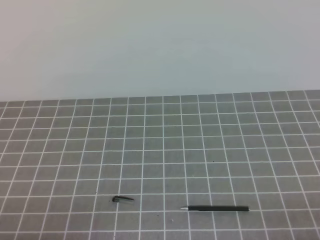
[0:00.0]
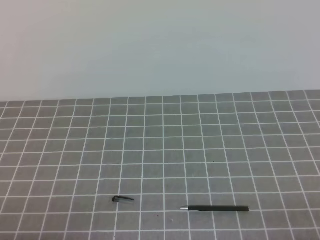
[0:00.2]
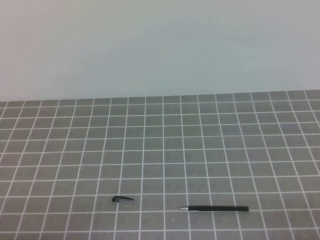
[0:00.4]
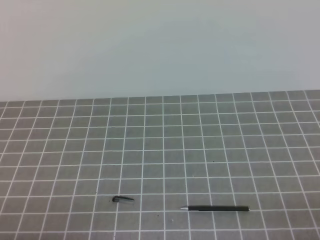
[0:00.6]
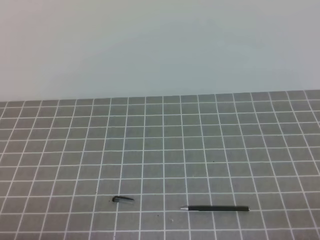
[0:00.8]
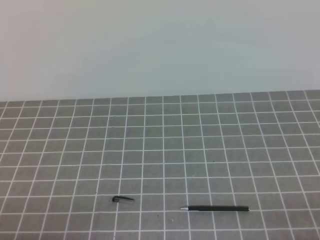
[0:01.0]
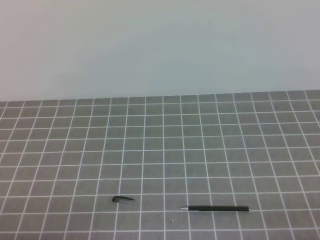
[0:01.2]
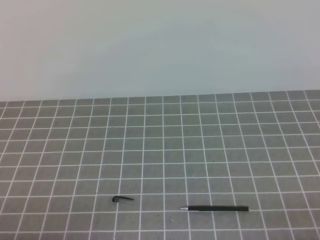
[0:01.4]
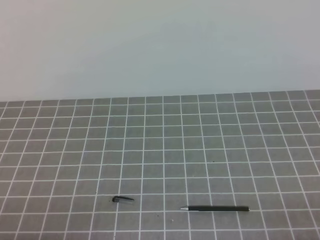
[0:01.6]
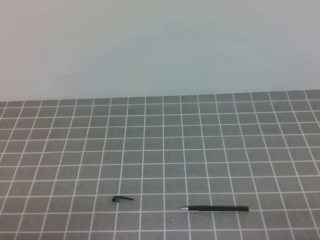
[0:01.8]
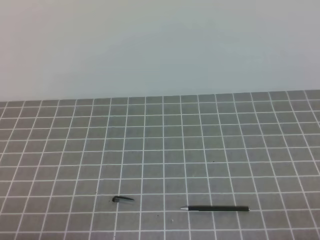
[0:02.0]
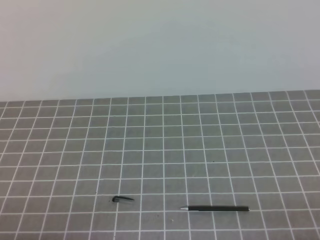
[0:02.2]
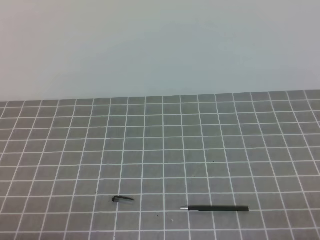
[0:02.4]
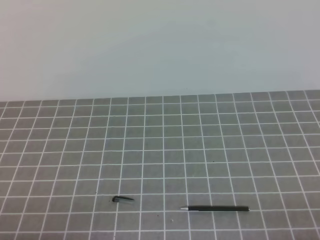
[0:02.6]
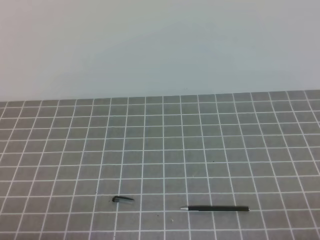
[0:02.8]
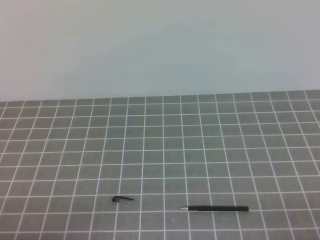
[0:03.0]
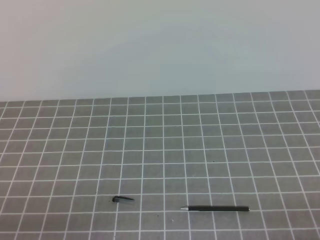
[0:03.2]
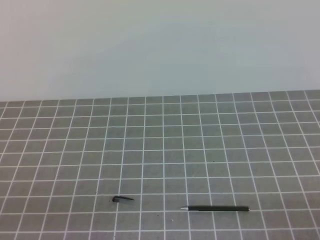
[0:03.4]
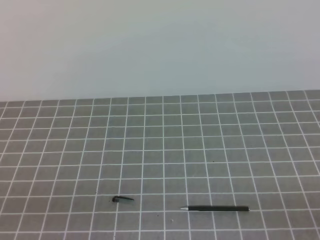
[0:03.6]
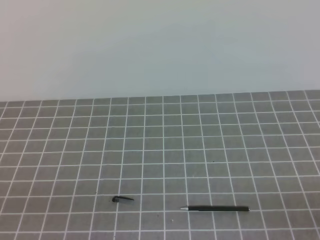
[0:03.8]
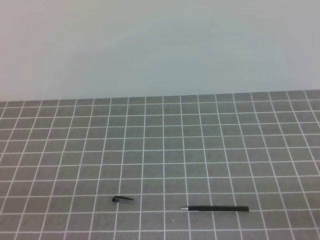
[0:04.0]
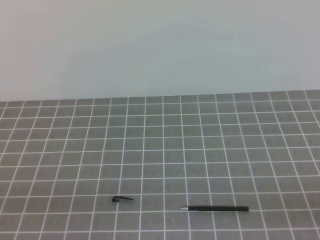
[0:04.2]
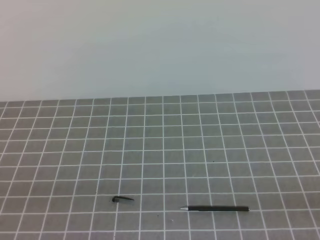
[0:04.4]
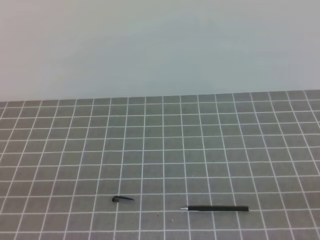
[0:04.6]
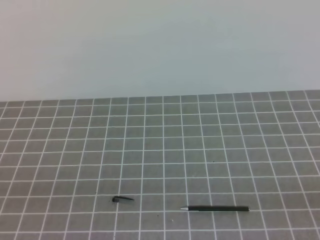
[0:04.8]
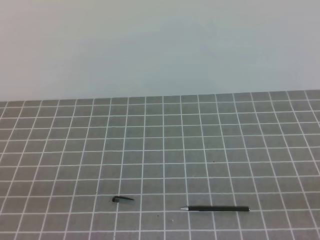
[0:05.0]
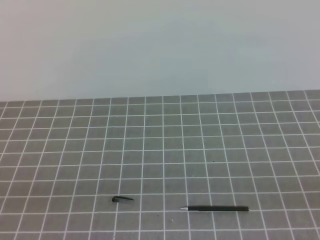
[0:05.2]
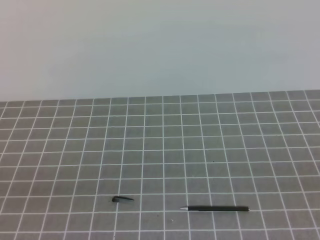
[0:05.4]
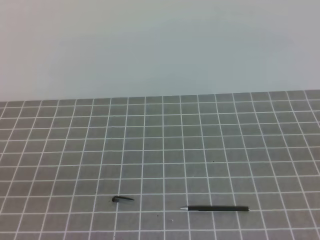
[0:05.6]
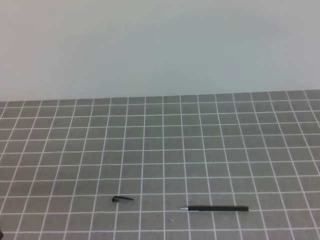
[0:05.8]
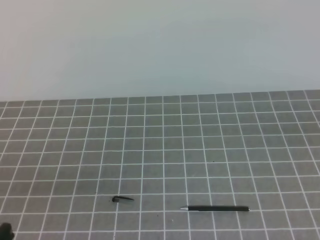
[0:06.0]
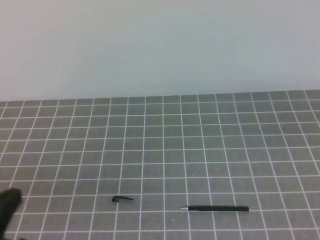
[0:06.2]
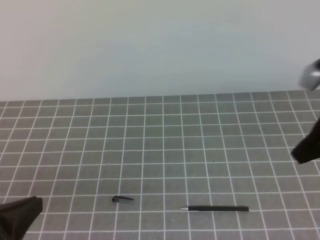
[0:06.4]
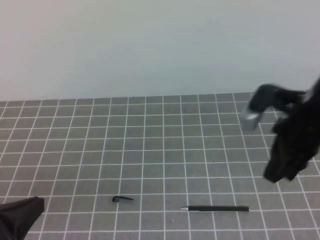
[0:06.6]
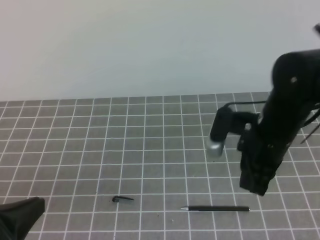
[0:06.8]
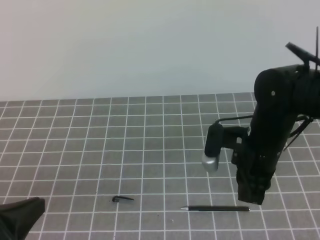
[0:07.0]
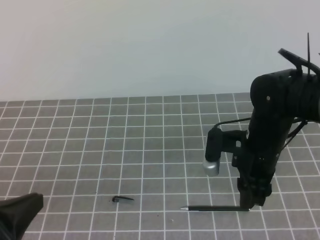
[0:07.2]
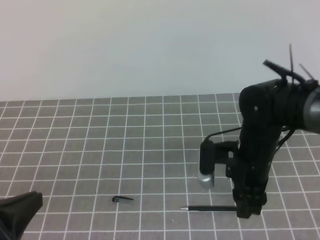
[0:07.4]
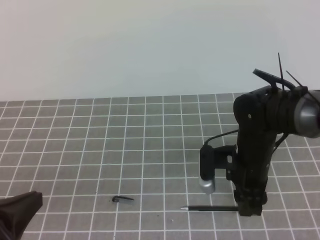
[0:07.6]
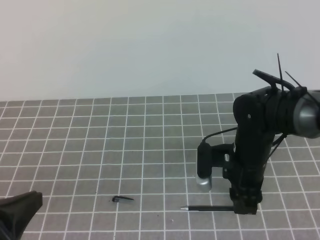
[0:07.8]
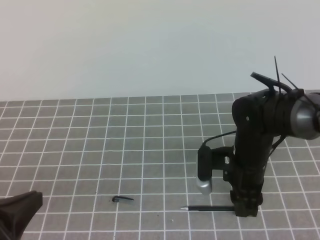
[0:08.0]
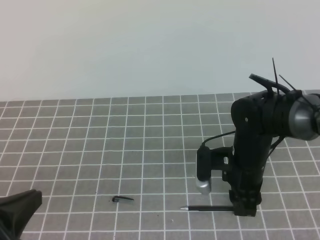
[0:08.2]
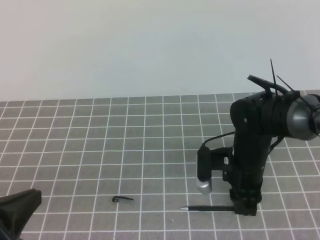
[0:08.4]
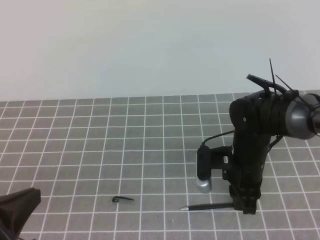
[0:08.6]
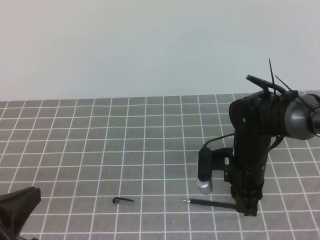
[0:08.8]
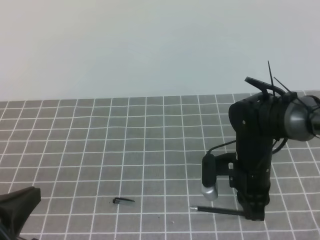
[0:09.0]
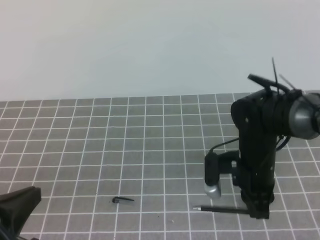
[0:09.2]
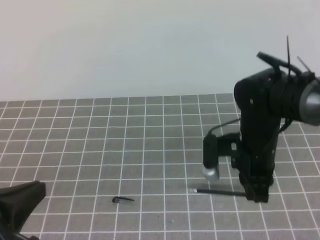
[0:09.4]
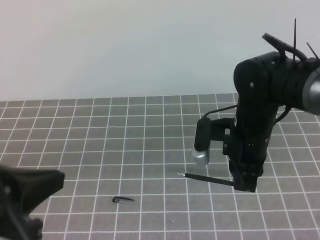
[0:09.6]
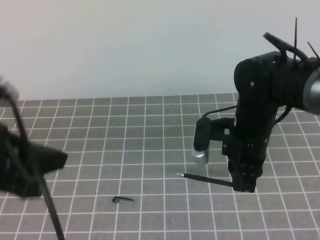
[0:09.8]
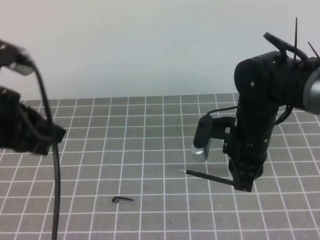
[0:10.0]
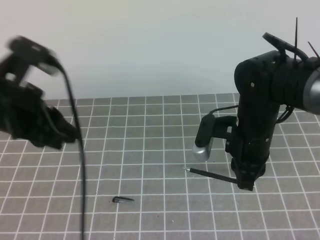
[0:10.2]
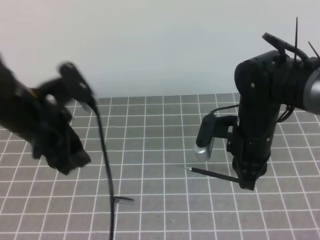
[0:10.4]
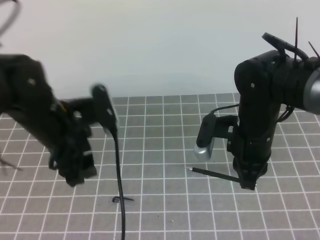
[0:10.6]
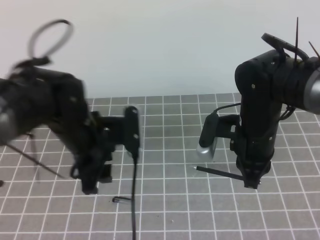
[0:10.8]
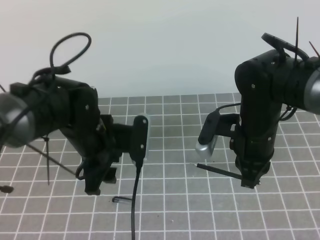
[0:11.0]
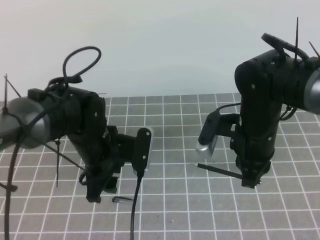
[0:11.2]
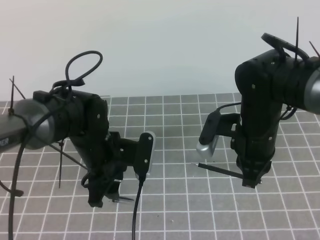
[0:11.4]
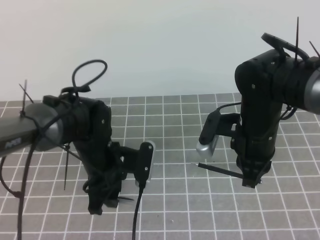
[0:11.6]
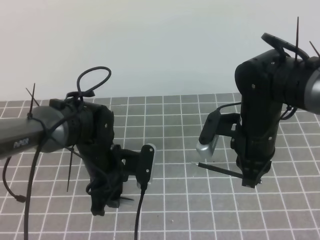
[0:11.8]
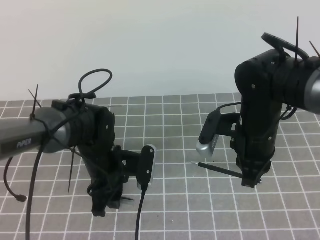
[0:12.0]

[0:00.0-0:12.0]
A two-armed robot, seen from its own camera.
Task of the whole recording: on the grey tablecloth, hold the pen cap in one hand and the pen in the other, then cover the pen cap.
Step, 0:00.0 to 0:07.2: Grab the pen barrel with the right hand.
Step, 0:07.4 to 0:10.4: Grab the pen cap with the left hand.
0:00.0 to 0:03.0: Both grippers stay put.
0:06.0 to 0:07.6: The right gripper travels downward, to the left and forward by about 30 cm, and opens up.
0:07.6 to 0:09.0: The right gripper closes up.
0:09.0 to 0:10.4: The right gripper goes roughly 5 cm upward. The left gripper moves forward, about 15 cm, and opens its fingers.
0:10.4 to 0:12.0: The left gripper is displaced downward and to the right by approximately 15 cm.

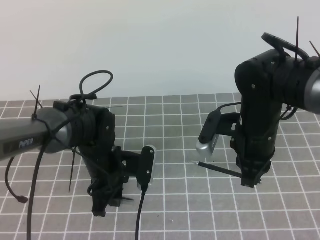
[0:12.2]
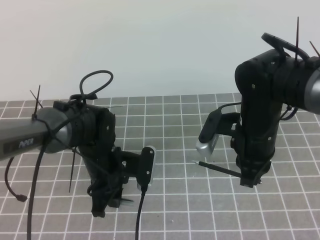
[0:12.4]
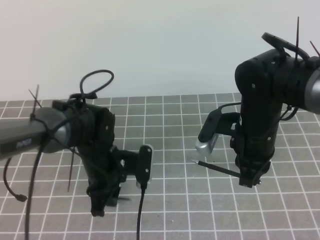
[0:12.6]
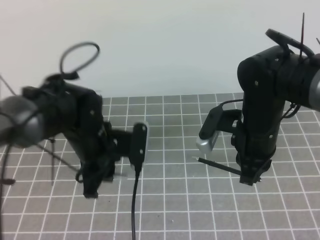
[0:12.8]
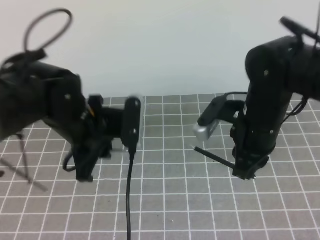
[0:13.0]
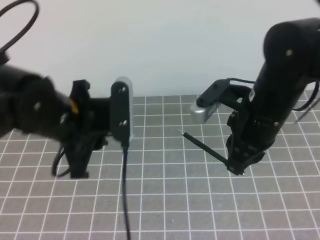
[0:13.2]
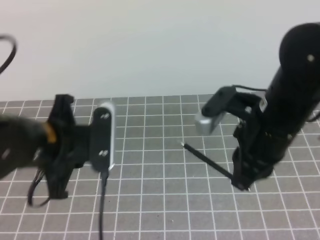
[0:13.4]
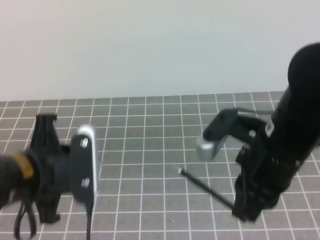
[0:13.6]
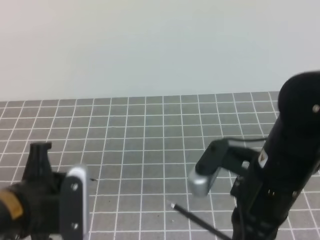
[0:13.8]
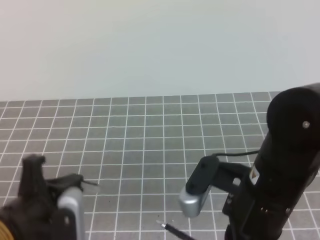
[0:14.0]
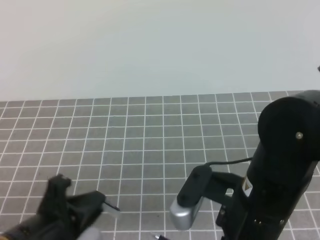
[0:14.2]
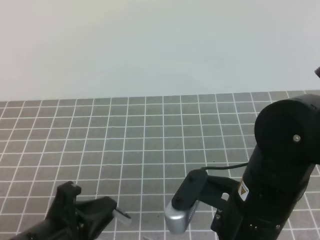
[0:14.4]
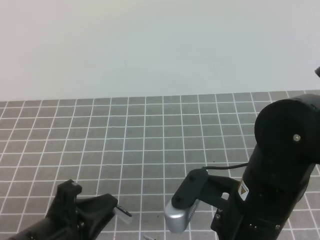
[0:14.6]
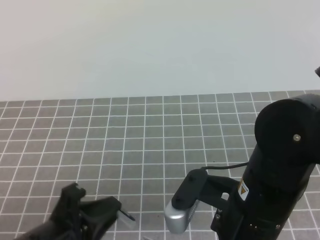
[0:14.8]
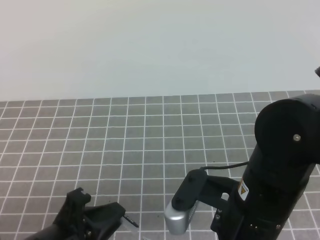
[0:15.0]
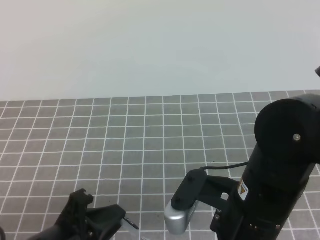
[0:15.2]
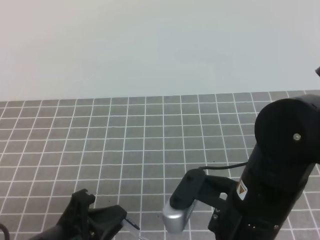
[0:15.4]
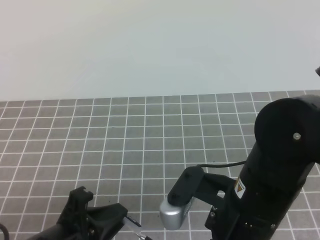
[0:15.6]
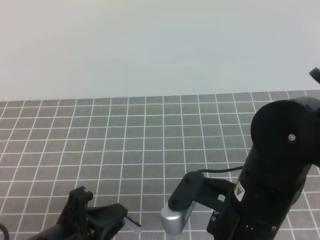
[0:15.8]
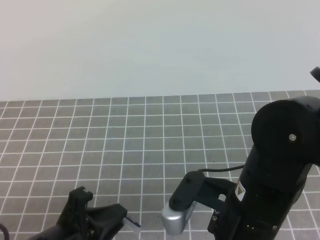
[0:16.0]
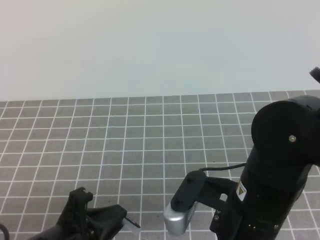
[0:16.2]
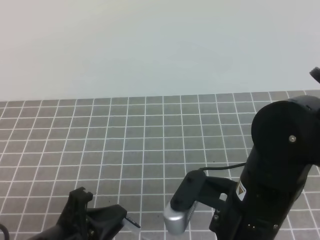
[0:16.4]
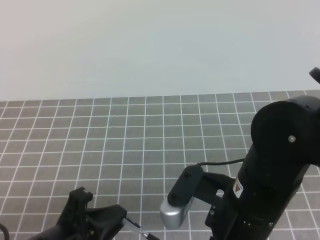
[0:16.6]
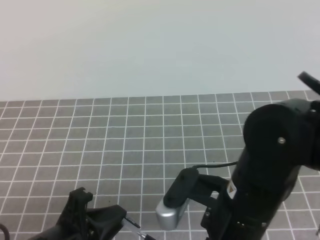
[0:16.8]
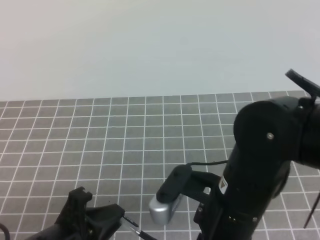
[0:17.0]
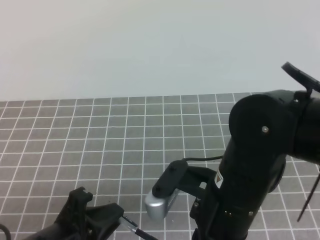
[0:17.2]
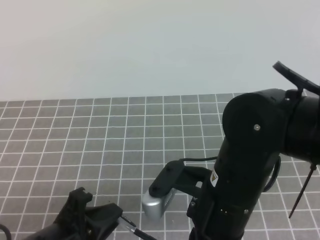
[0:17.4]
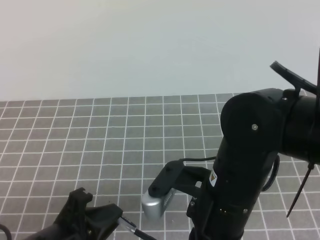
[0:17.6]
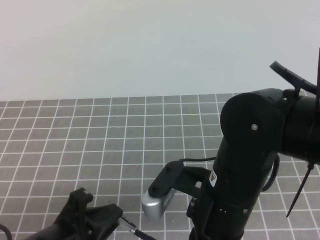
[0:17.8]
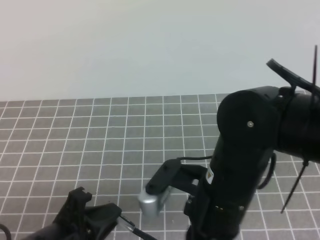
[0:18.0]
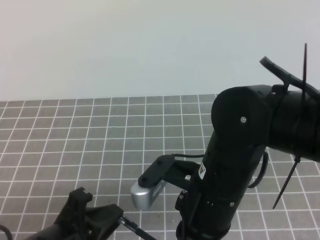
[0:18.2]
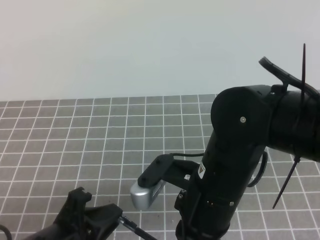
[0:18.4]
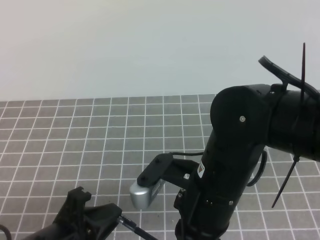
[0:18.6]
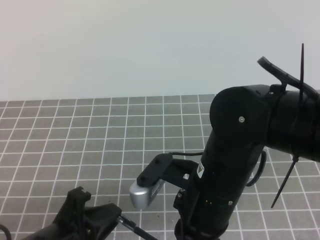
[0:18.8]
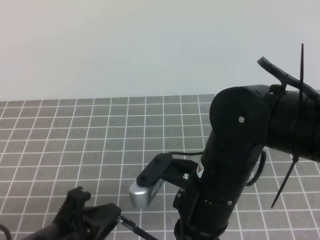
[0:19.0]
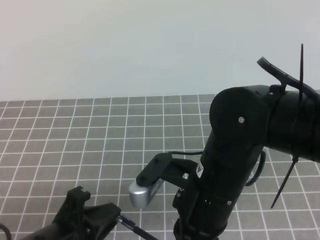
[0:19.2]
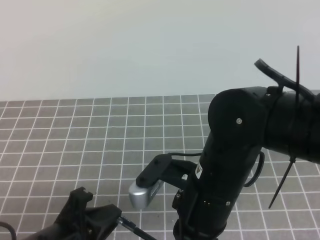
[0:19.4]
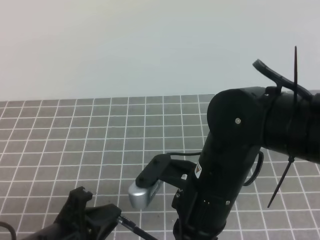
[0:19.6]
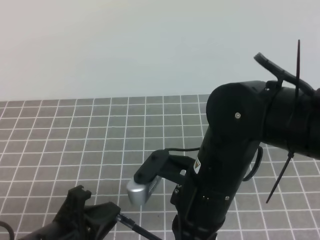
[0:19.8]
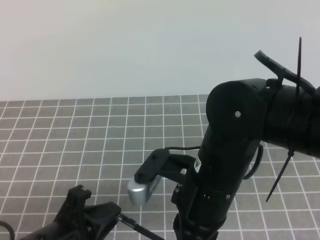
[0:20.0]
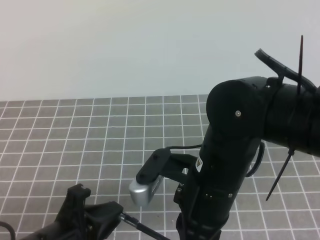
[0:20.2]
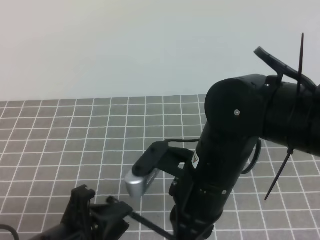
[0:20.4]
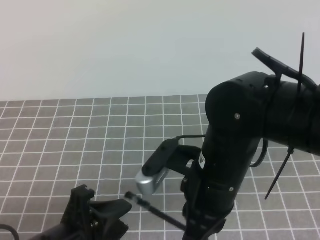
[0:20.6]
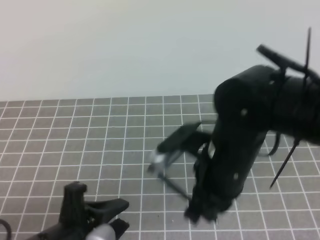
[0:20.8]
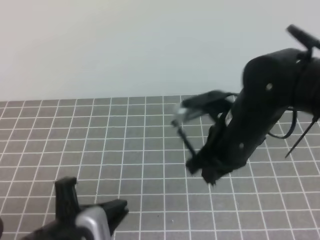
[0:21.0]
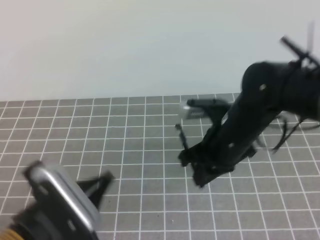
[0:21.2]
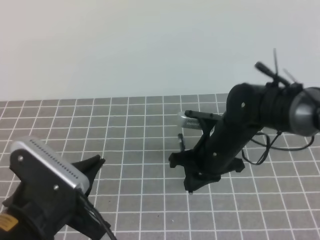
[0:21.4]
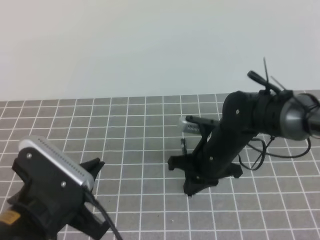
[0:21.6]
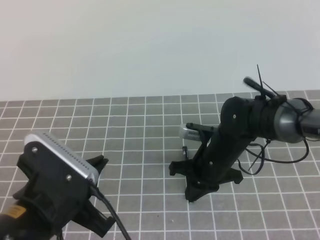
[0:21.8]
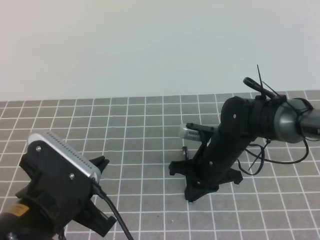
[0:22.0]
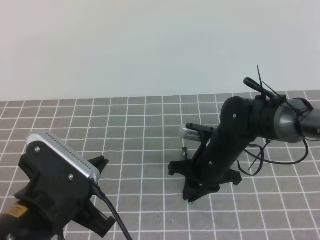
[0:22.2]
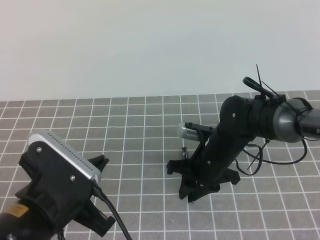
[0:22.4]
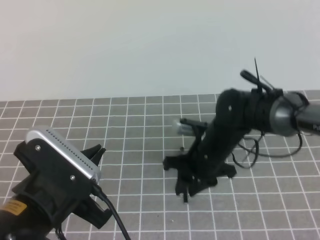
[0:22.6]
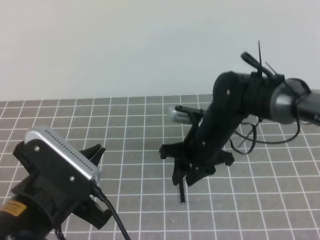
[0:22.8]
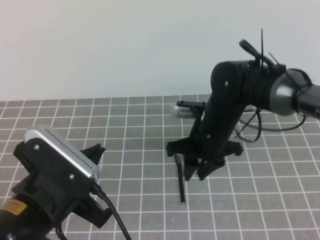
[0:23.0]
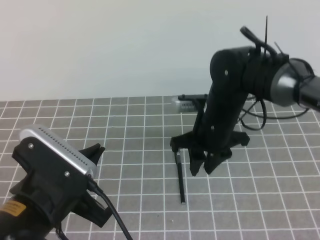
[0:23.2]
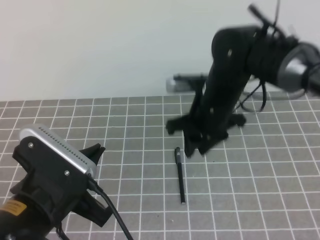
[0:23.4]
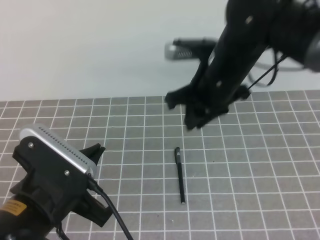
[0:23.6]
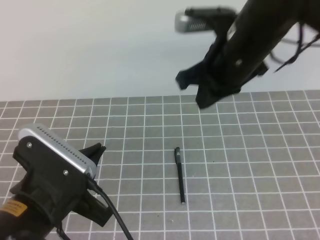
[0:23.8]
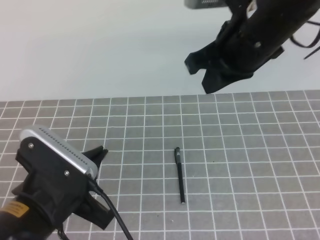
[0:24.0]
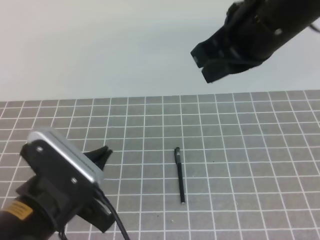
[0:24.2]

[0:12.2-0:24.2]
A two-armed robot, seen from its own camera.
Task of the whole recording: on the grey tablecloth, hold the pen cap in one hand and the pen in the other, then cover the pen cap.
Step, 0:12.2 to 0:15.8: Insert the pen cap with the right hand.
Step, 0:17.0 to 0:18.8: Place the pen down with the right hand.
0:12.2 to 0:13.8: The left gripper shifts roughly 20 cm backward, upward and to the left; the right gripper moves backward and upward, some 15 cm.
0:13.8 to 0:15.2: The right gripper changes place by about 5 cm. Meanwhile the left gripper travels backward by some 5 cm.
0:15.2 to 0:16.6: Neither gripper changes place.
0:16.6 to 0:18.2: There are only small adjustments of the grippers.
0:18.2 to 0:19.8: The two grippers keep their place.
0:19.8 to 0:21.2: The left gripper opens and closes again. The right gripper travels forward by approximately 10 cm.
0:21.2 to 0:22.6: The right gripper shifts some 5 cm downward, and opens up.
0:22.6 to 0:24.2: The right gripper goes about 25 cm upward, and closes.
